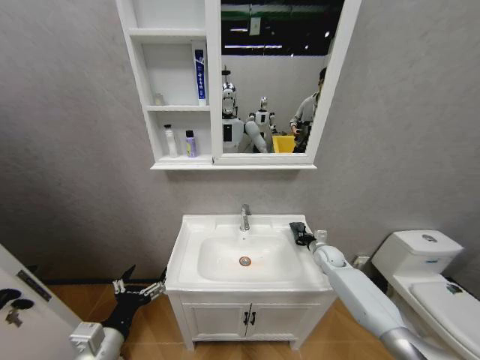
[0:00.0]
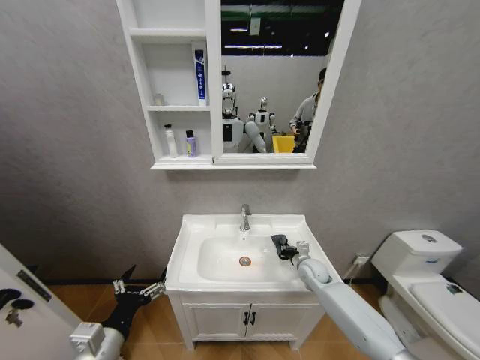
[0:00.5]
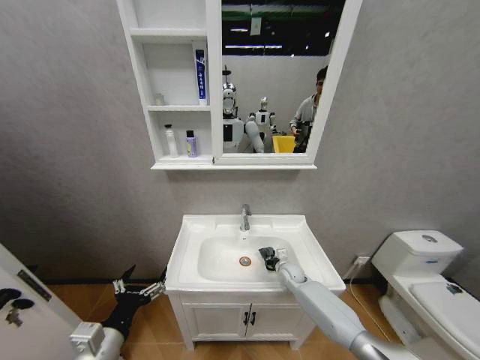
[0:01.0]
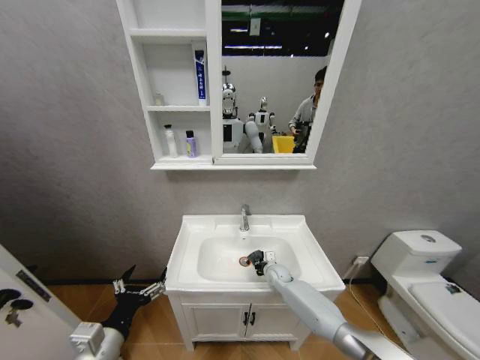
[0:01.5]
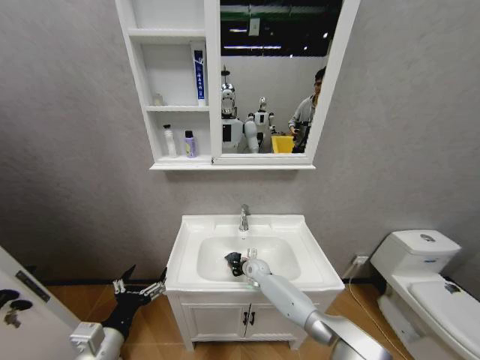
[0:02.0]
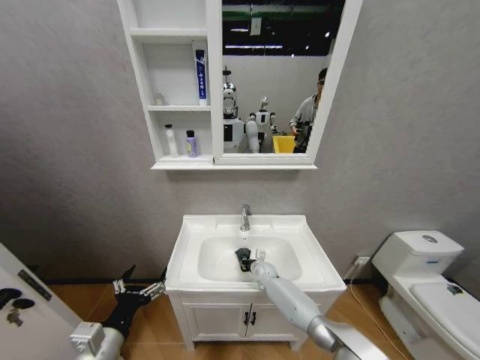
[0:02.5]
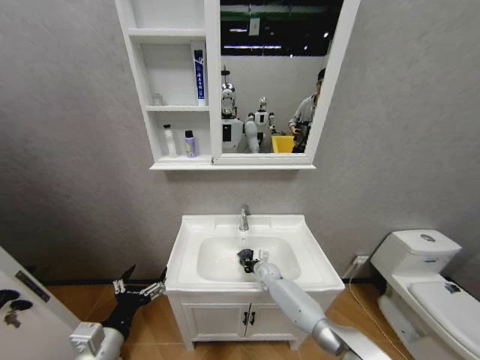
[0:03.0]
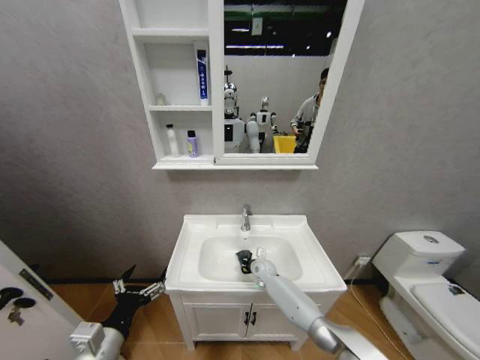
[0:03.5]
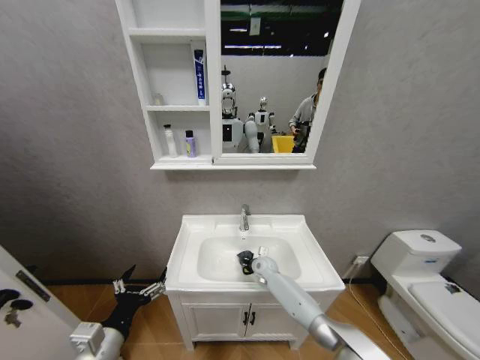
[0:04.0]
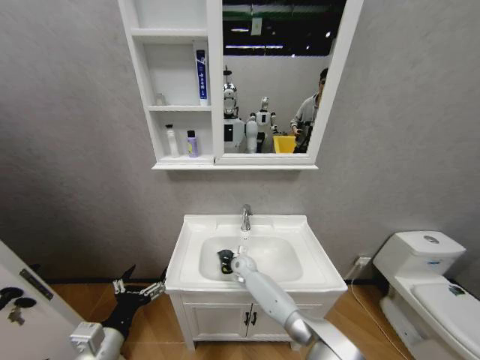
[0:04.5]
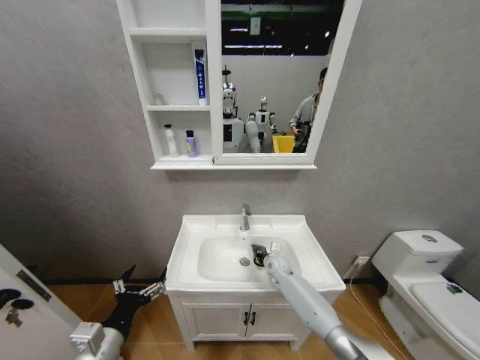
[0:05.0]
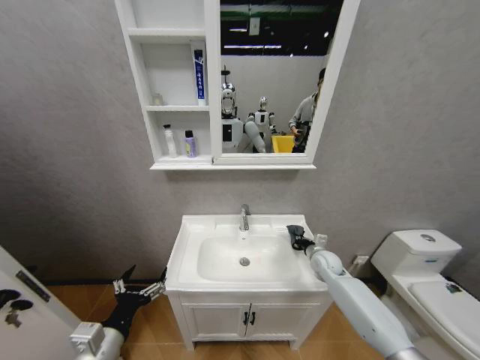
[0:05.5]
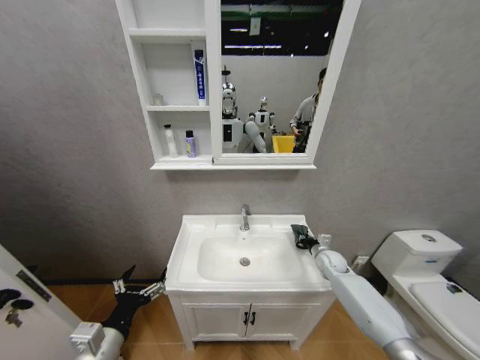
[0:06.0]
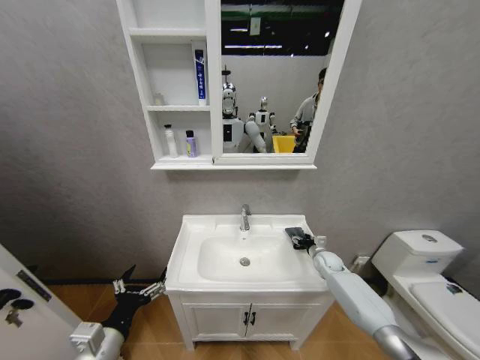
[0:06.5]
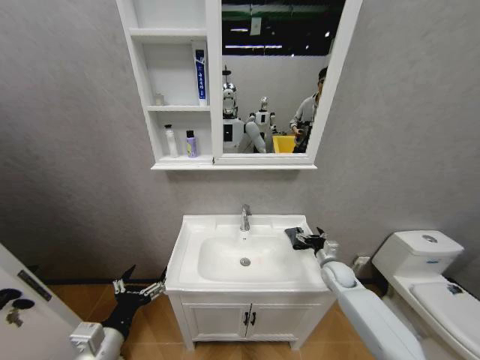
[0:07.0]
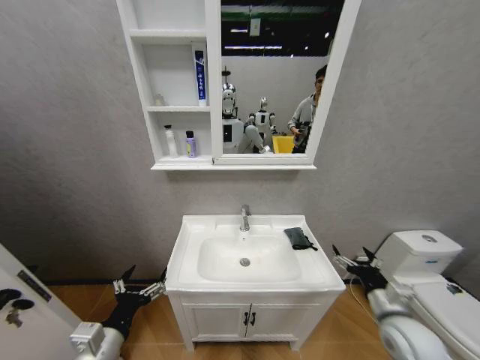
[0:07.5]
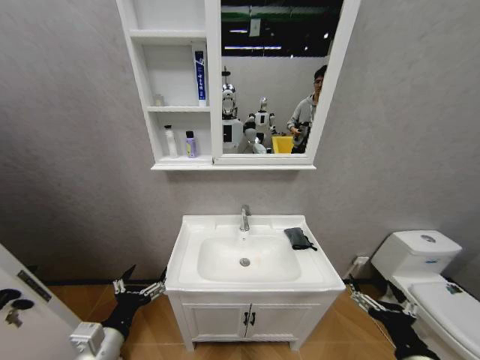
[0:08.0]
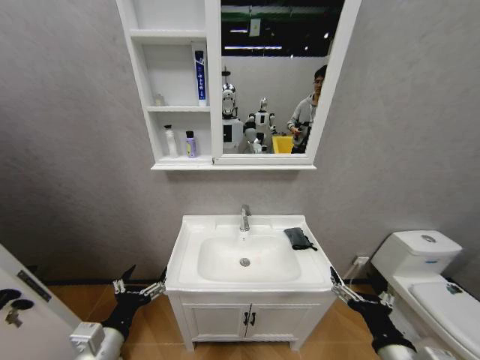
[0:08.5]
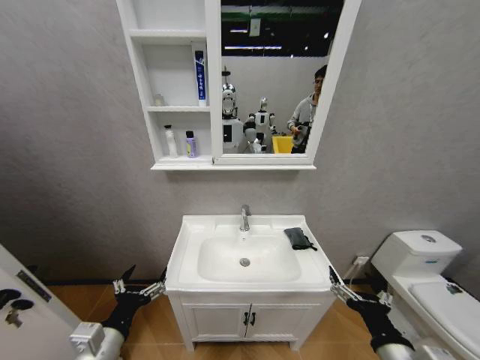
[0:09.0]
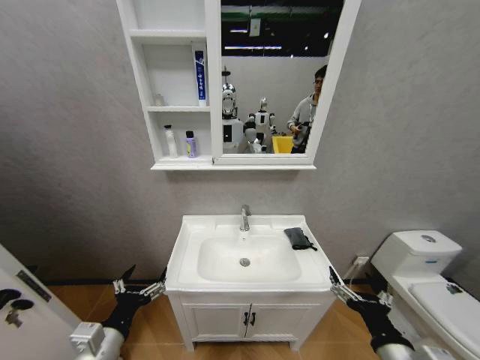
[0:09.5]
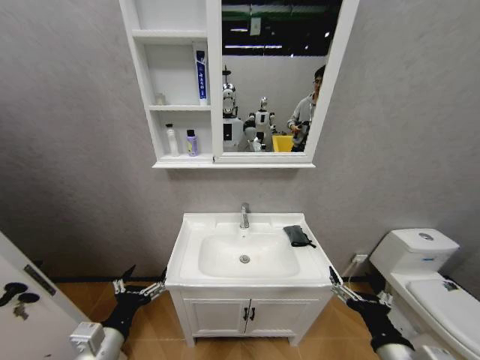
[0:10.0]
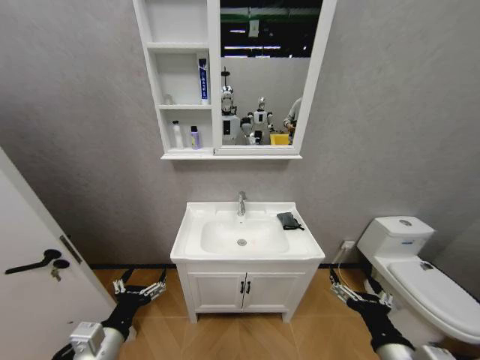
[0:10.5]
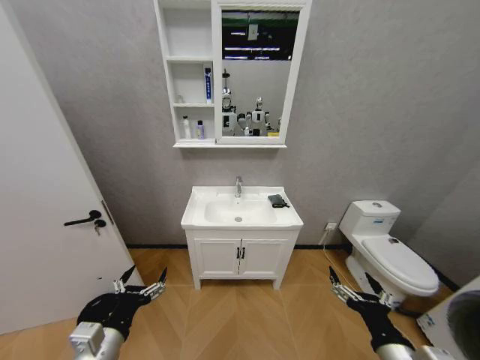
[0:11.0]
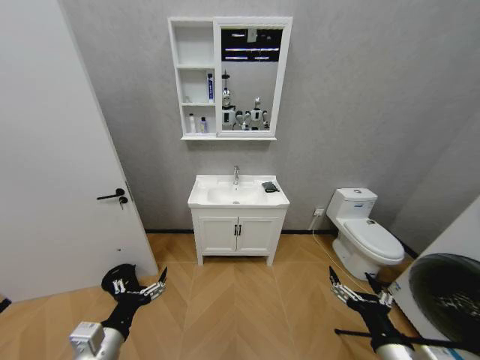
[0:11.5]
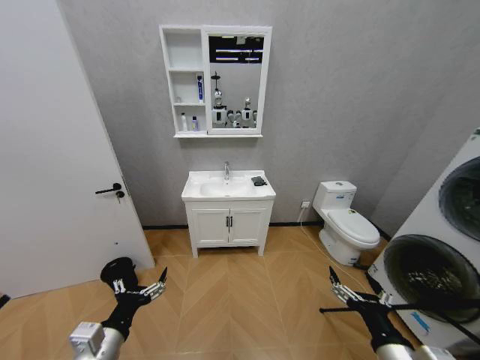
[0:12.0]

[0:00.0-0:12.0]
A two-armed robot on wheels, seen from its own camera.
Task of the whole recording: Move facial cleanser and shampoo from washbasin to cabinet, then wipe washbasin with towel.
0:00.0 to 0:02.0: The right gripper travels to the left by about 25 cm.
0:04.0 to 0:06.0: The right gripper travels to the right by some 25 cm.
0:06.0 to 0:08.0: The right gripper goes roughly 40 cm backward, and opens up.
0:08.0 to 0:10.0: The right gripper travels to the left by roughly 5 cm.
